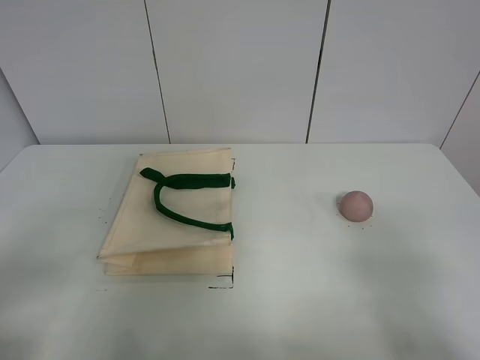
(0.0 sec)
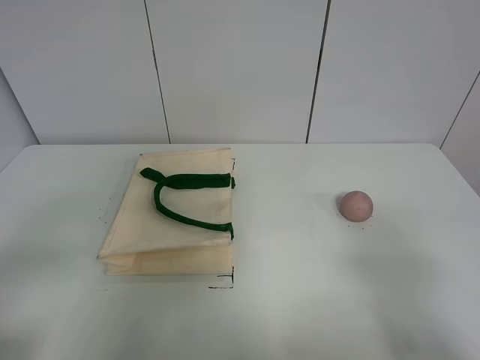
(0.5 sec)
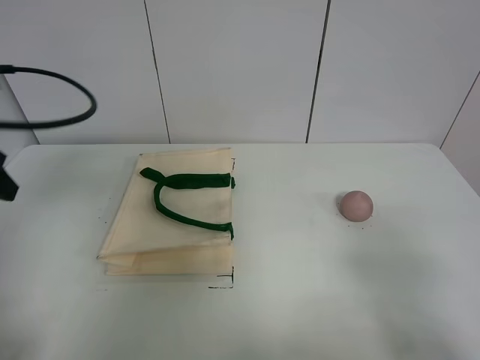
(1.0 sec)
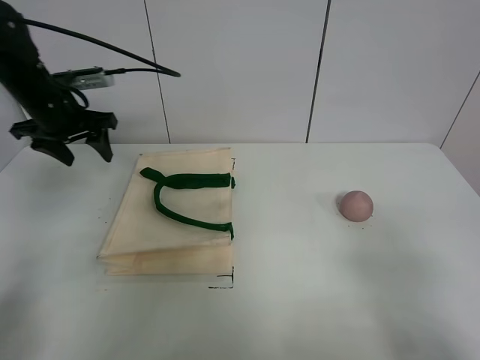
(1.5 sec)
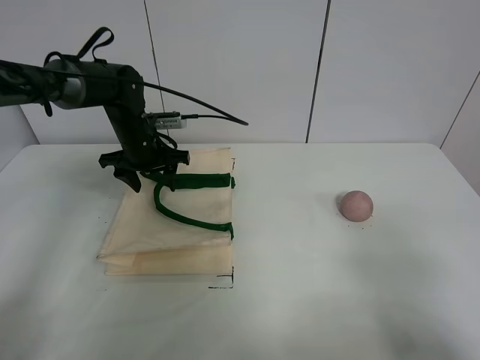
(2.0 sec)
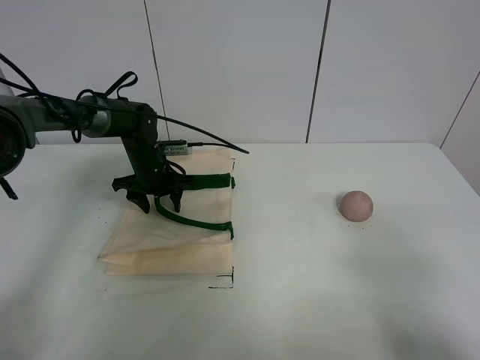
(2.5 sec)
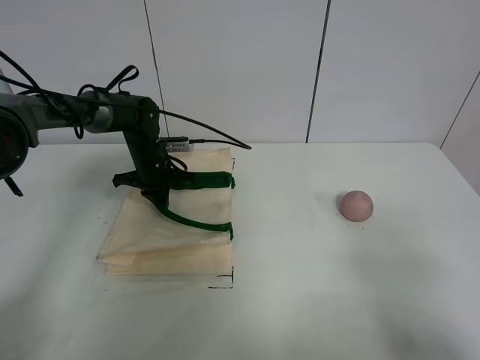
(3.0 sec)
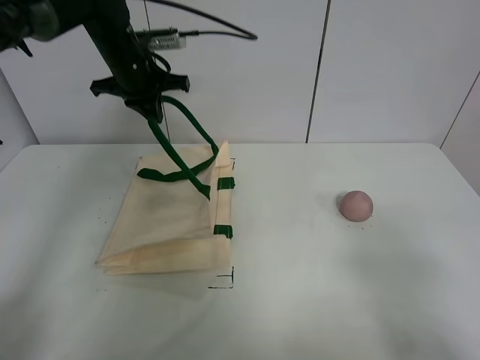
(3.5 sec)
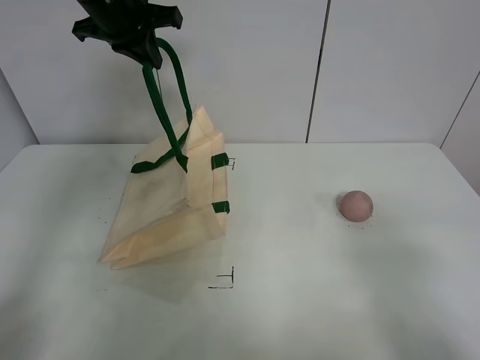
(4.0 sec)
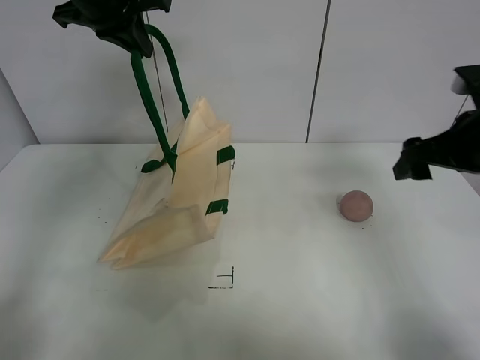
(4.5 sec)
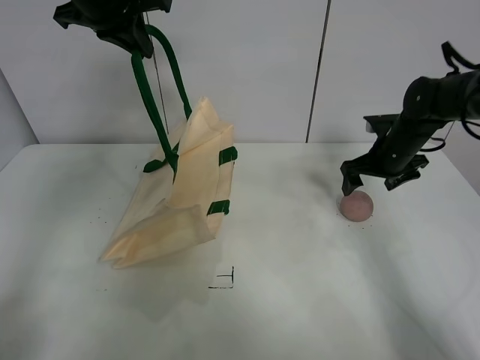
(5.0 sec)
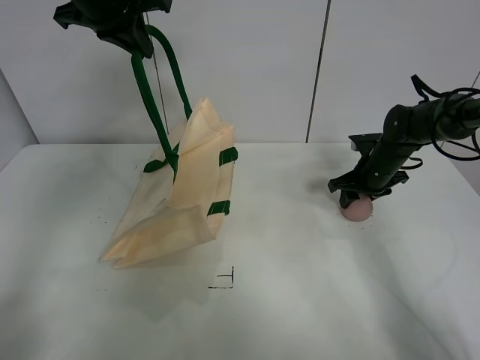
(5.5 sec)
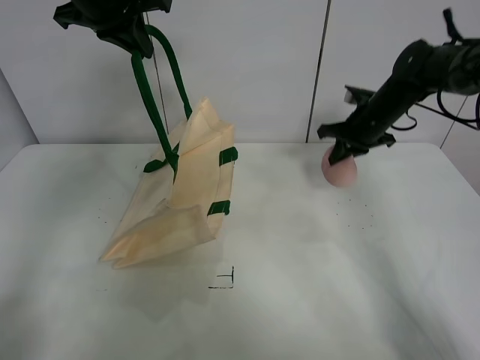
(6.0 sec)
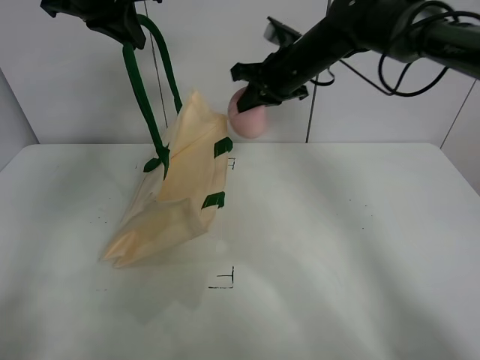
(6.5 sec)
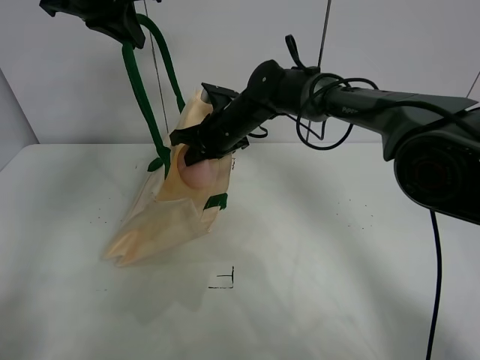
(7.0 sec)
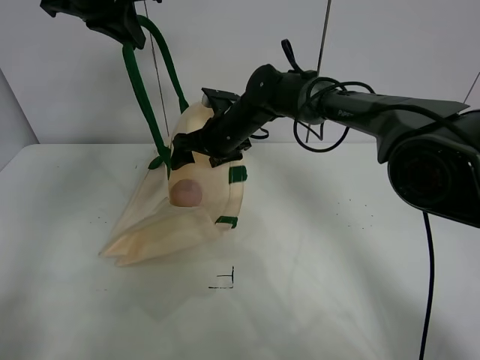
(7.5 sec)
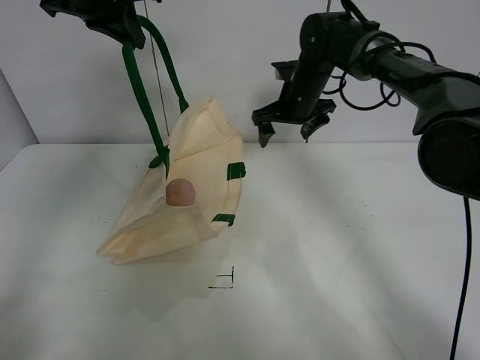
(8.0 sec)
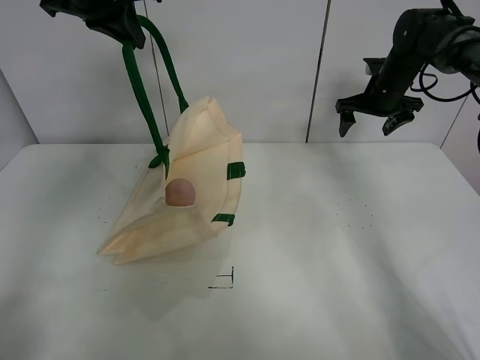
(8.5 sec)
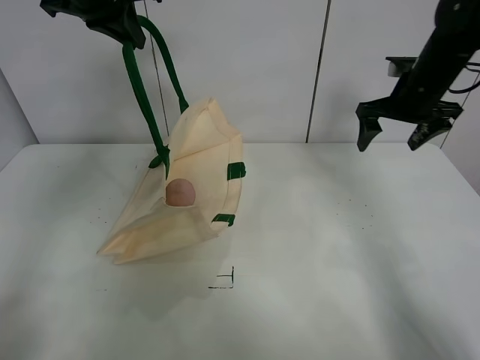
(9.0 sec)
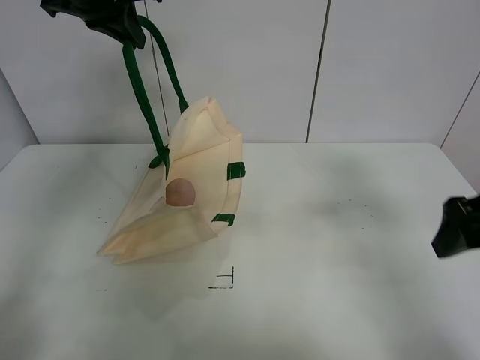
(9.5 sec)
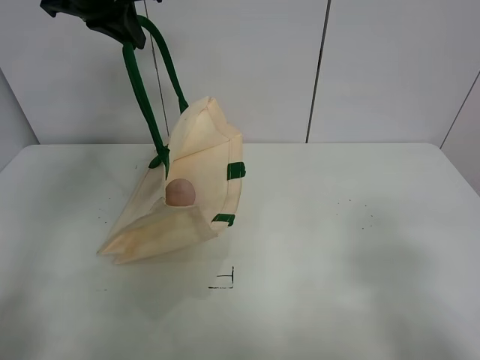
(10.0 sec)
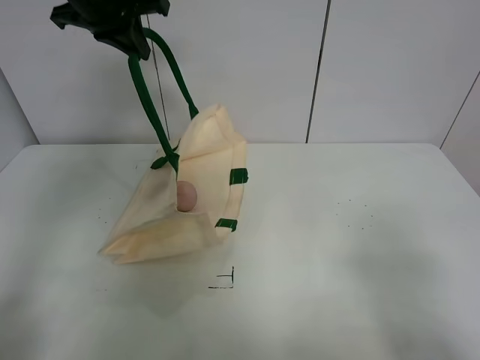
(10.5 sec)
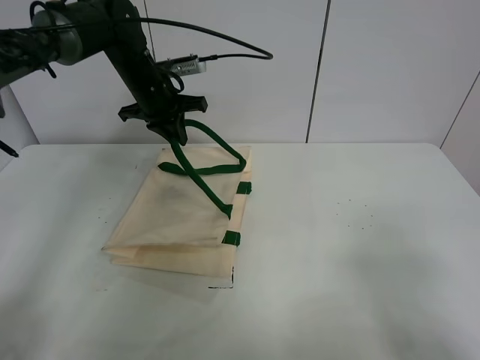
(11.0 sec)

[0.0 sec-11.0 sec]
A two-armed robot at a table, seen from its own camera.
Task of the whole recording: open the white linen bag and put the peach in the bag.
Step, 0.0 sec to 3.5 sec: Lift the handbag with left gripper.
Step, 4.0 sec to 5.5 sec: Grasp the peach with right gripper.
Step, 6.0 sec to 7.5 sec: Place the peach in the handbag with right gripper.
2.0 sec to 3.5 sec: The left gripper is displaced upward by about 10 cm, and closes.
3.5 sec to 5.5 sec: The left gripper is displaced upward and backward by some 15 cm. The right gripper shifts roughly 40 cm forward.
5.5 sec to 7.5 sec: The right gripper shifts about 25 cm to the left, and closes and opens again.
7.5 sec to 9.0 sec: The right gripper moves to the right, approximately 30 cm.
9.0 sec to 11.0 sec: The right gripper shifts approximately 50 cm backward. Meanwhile the left gripper travels downward and forward by about 15 cm.

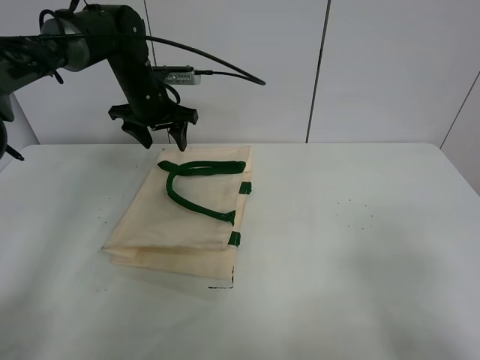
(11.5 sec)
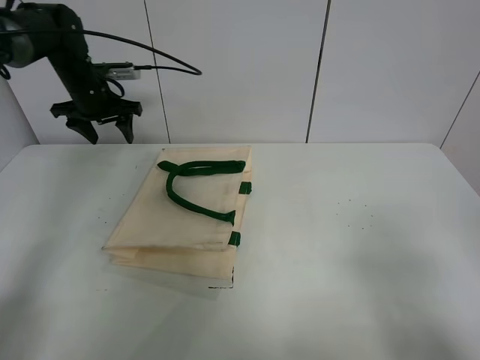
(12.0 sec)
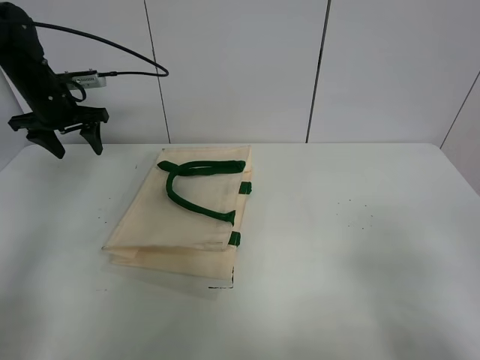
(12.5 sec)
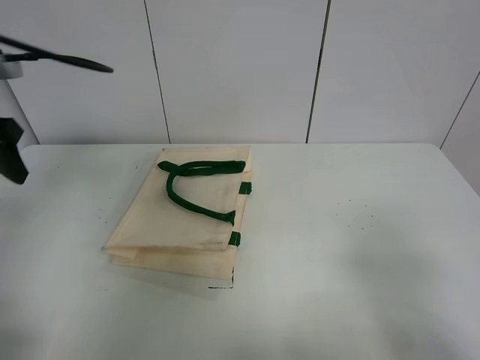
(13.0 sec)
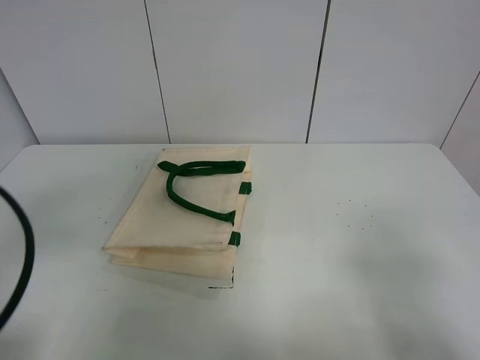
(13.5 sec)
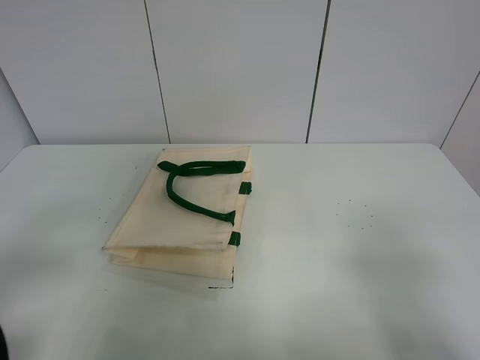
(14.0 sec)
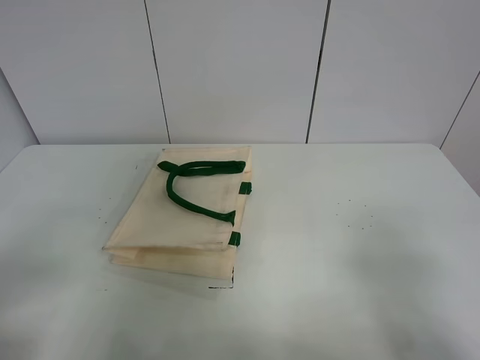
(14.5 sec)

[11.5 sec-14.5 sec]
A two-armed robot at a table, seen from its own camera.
Task of the whole recording: open the white linen bag and put the peach in the bag.
11.5 sec to 13.0 sec: The left gripper moves backward, to the left and upward, roughly 25 cm.
13.0 sec to 14.5 sec: The left gripper is displaced backward by about 30 cm.
